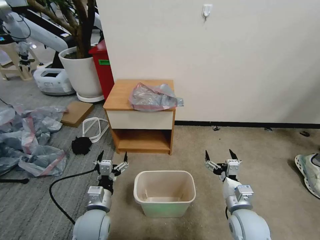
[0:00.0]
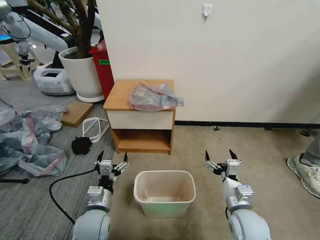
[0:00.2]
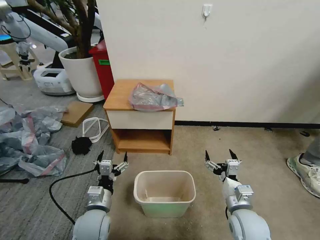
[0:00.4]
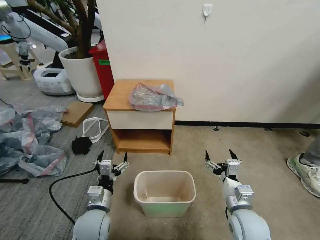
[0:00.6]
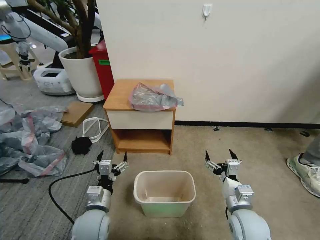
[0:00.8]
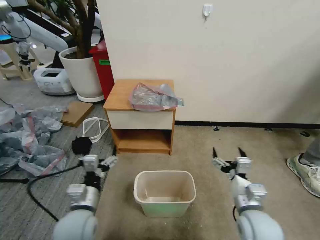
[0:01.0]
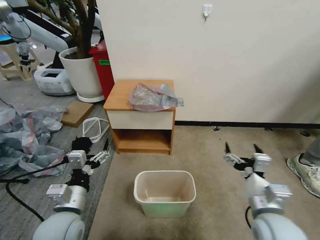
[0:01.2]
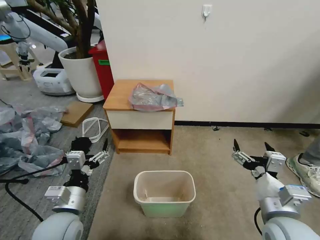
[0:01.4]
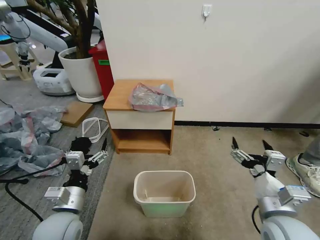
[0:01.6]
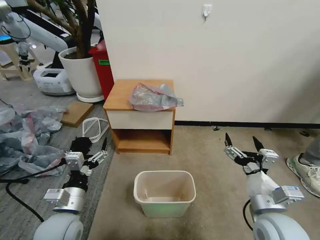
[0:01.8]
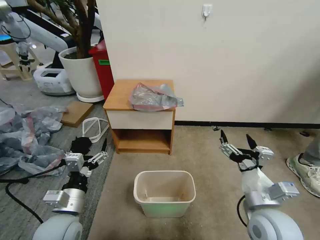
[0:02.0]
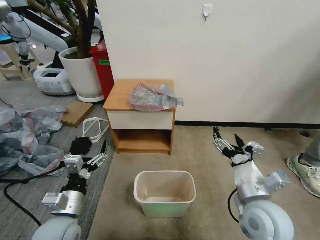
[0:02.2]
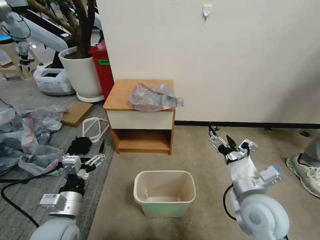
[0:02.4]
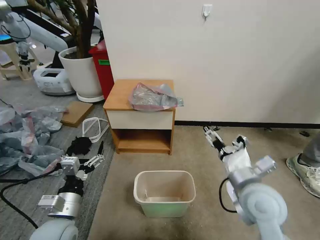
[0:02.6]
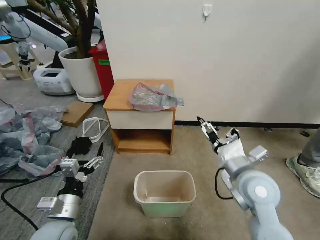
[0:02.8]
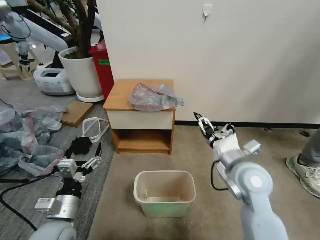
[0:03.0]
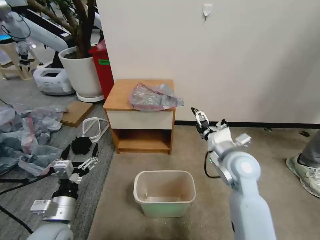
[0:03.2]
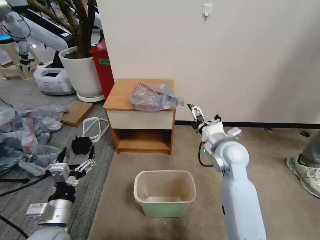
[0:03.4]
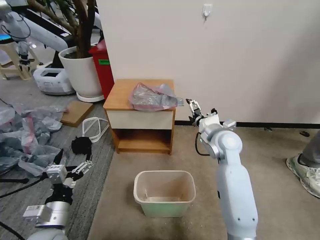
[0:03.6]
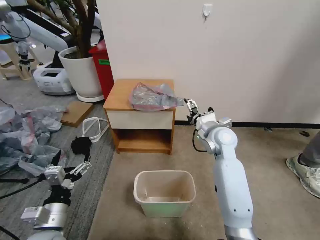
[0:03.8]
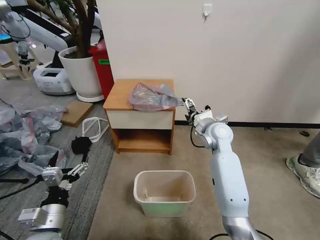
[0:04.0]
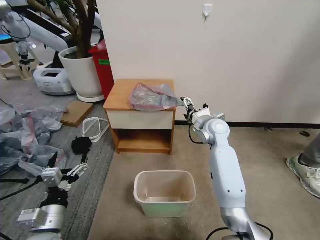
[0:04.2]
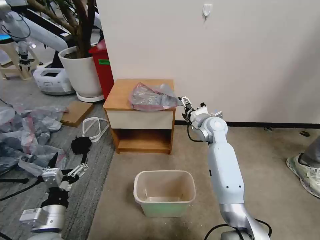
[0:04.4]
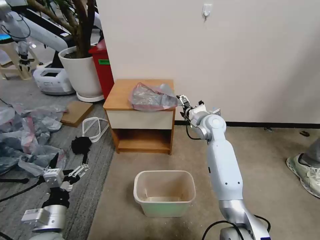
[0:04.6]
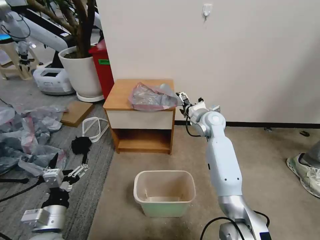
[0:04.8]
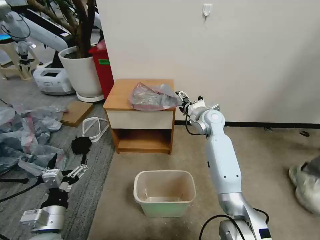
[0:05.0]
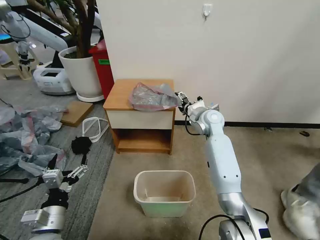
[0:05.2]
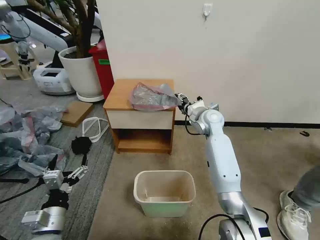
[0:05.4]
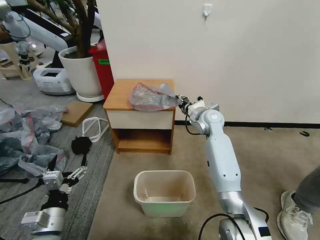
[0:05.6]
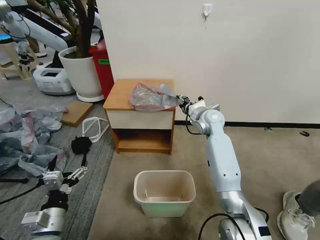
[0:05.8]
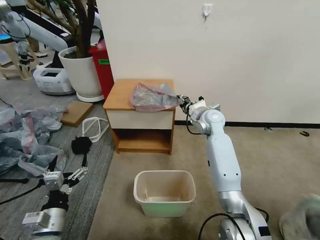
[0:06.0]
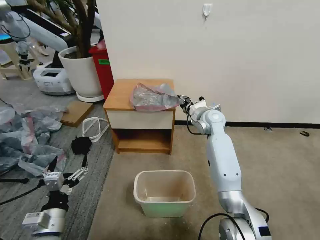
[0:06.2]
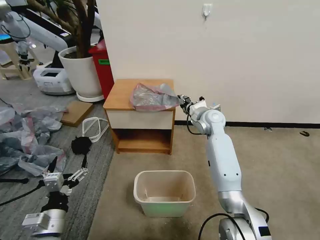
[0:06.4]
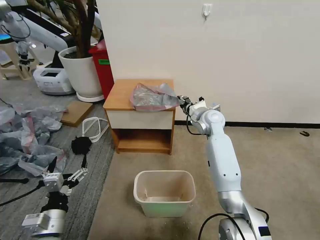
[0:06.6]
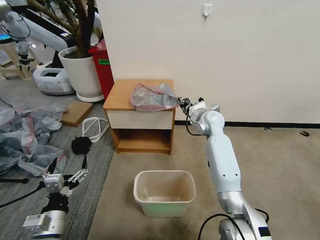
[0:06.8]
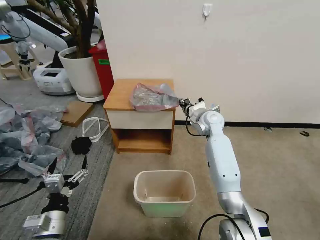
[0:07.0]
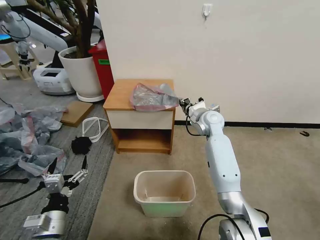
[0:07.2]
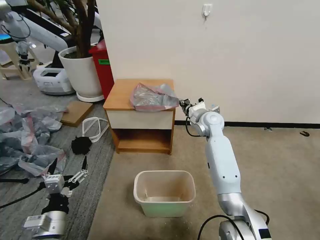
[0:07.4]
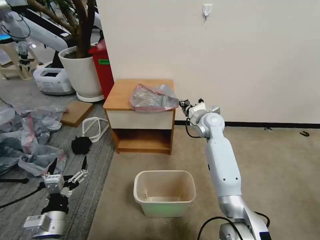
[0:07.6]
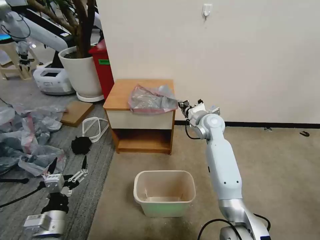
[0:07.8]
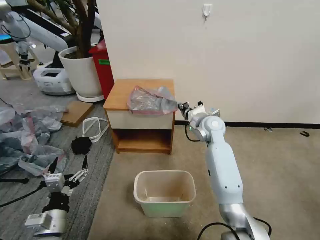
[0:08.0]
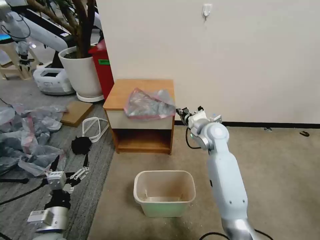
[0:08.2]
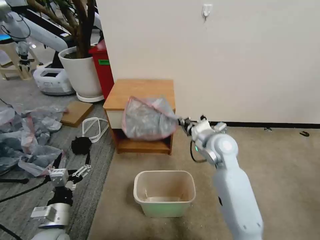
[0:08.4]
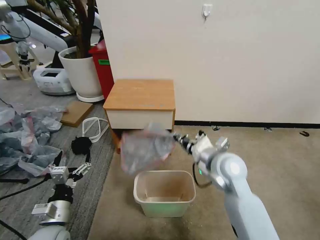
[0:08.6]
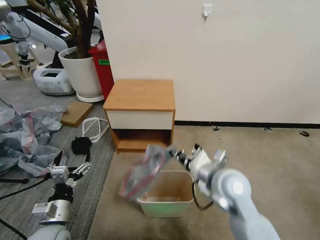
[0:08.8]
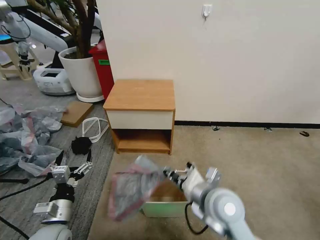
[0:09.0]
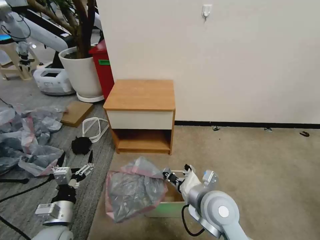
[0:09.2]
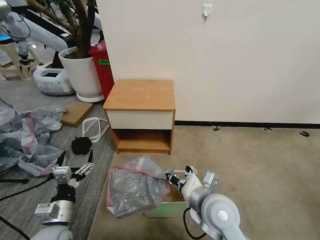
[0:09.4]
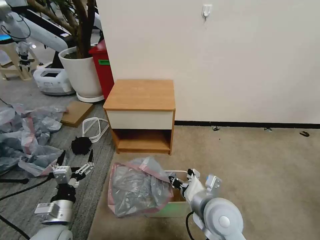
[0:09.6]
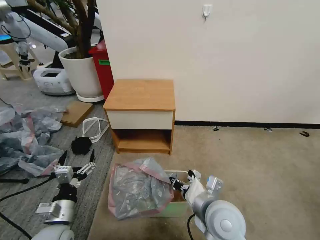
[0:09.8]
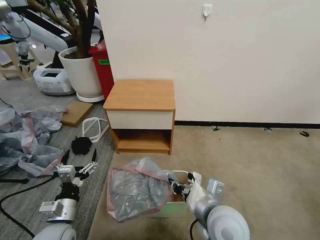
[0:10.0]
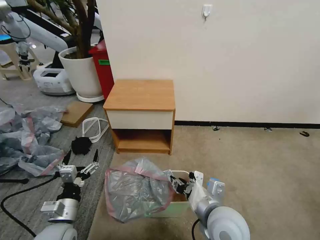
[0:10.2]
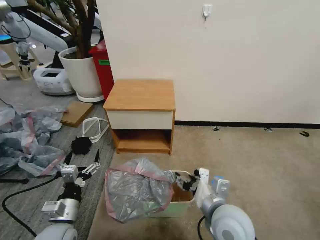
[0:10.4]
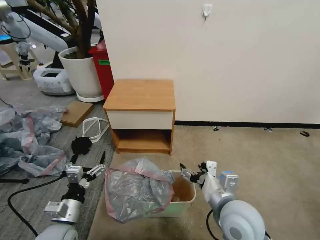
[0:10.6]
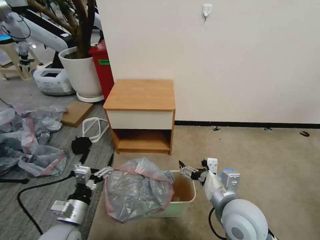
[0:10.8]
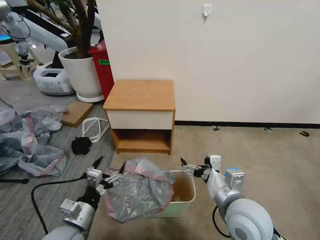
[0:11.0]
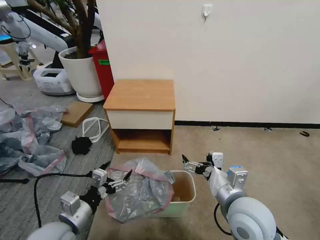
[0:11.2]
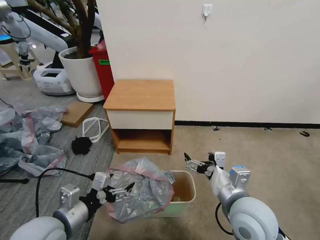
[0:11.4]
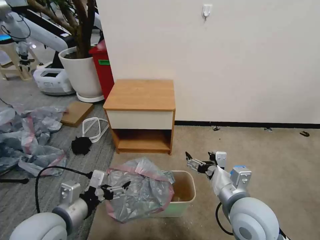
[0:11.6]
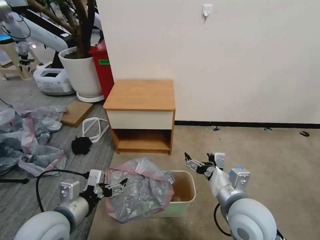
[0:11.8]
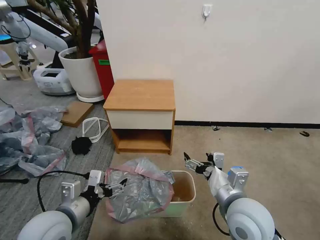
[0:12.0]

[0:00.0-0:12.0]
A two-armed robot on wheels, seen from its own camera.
Task of the whole recording: Pick up the garbage bag from the table and place it over the trash can.
0:01.6 to 0:03.0: The right gripper moves forward, roughly 15 cm.
0:03.0 to 0:04.4: The right gripper shifts about 20 cm forward.
0:04.4 to 0:06.0: The right gripper closes up.
0:06.0 to 0:07.6: The right gripper closes its fingers.
0:07.6 to 0:09.0: The right gripper shifts about 30 cm backward.
0:09.0 to 0:10.4: The right gripper opens up.
0:10.4 to 0:12.0: The left gripper shifts some 10 cm upward.

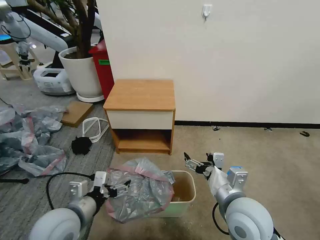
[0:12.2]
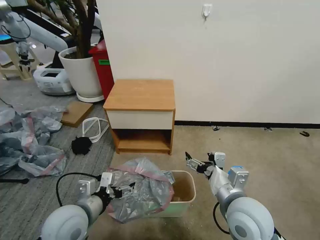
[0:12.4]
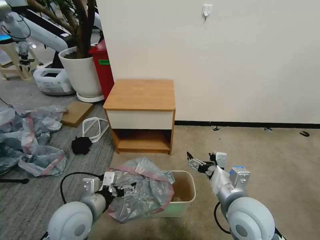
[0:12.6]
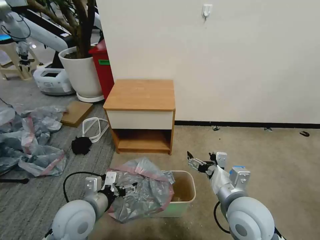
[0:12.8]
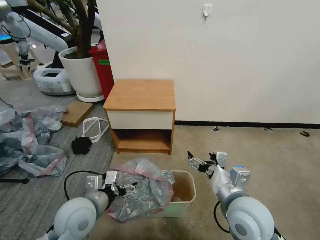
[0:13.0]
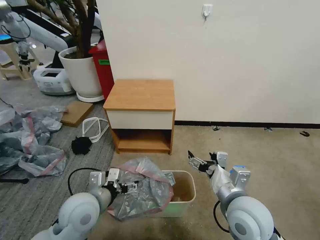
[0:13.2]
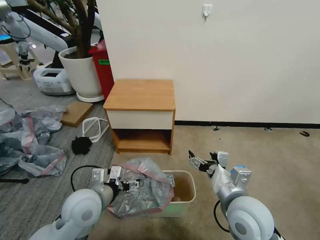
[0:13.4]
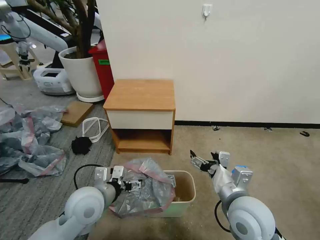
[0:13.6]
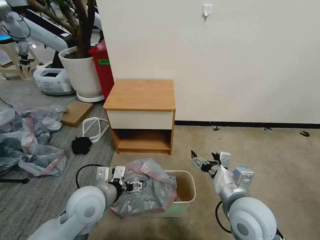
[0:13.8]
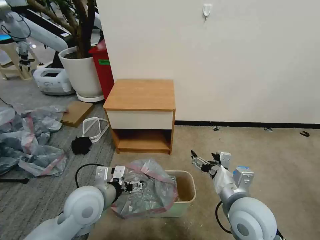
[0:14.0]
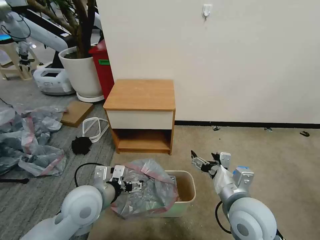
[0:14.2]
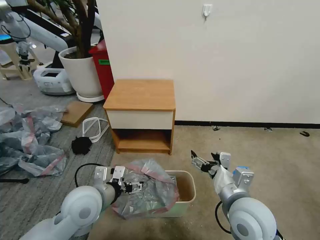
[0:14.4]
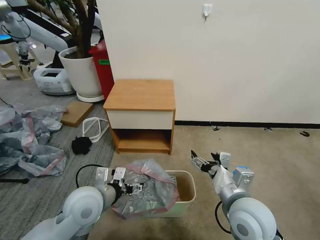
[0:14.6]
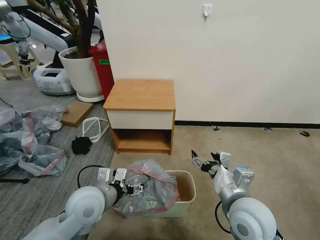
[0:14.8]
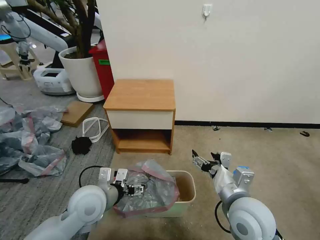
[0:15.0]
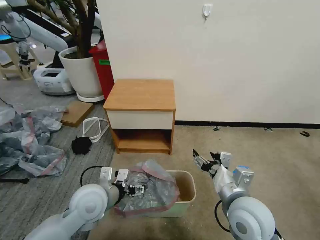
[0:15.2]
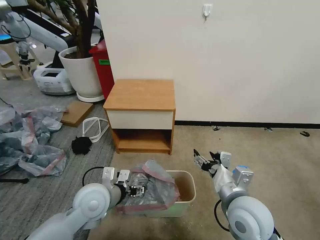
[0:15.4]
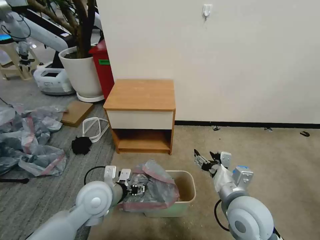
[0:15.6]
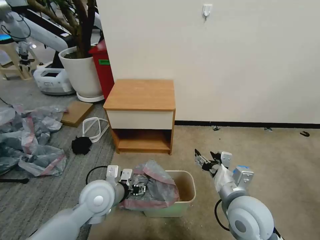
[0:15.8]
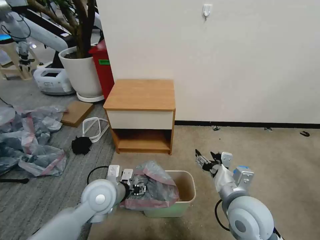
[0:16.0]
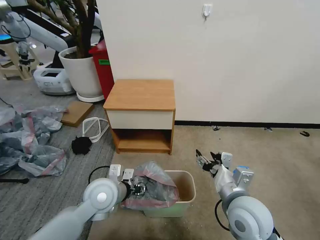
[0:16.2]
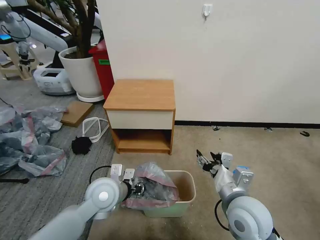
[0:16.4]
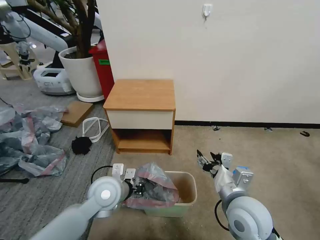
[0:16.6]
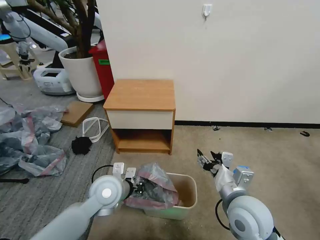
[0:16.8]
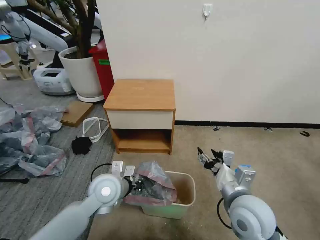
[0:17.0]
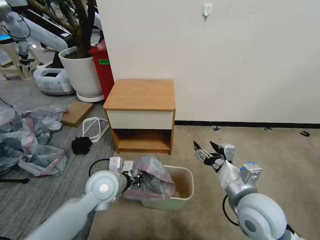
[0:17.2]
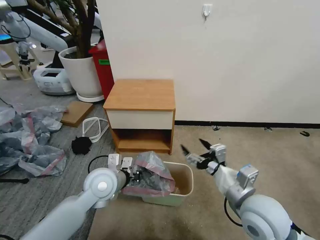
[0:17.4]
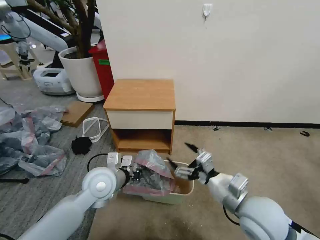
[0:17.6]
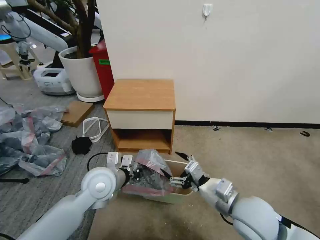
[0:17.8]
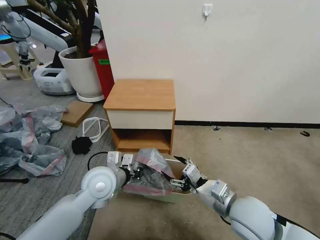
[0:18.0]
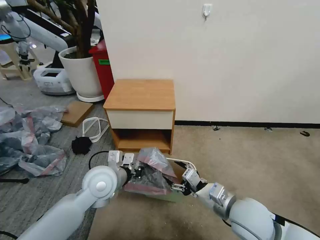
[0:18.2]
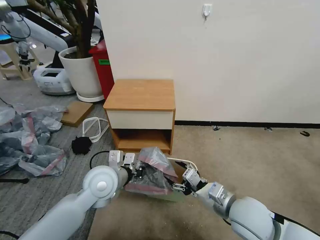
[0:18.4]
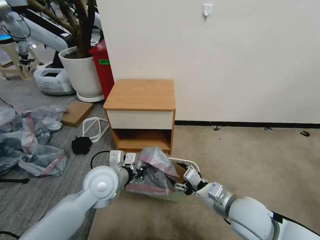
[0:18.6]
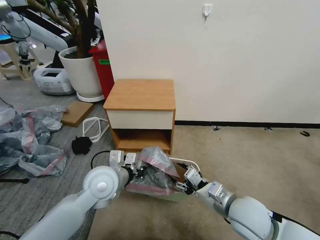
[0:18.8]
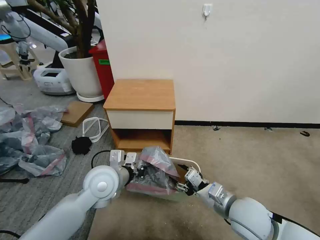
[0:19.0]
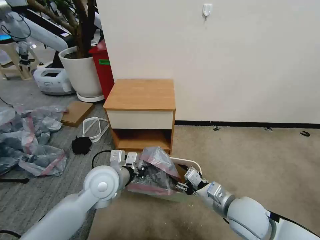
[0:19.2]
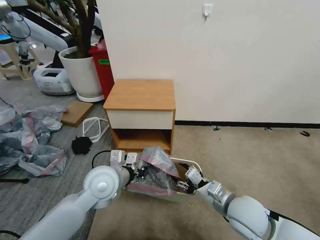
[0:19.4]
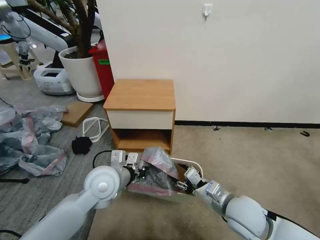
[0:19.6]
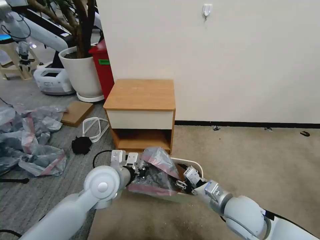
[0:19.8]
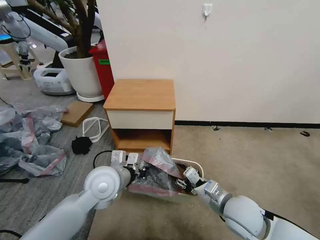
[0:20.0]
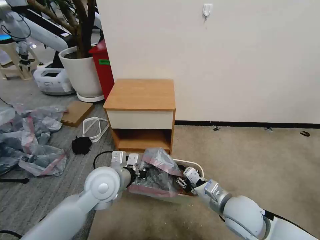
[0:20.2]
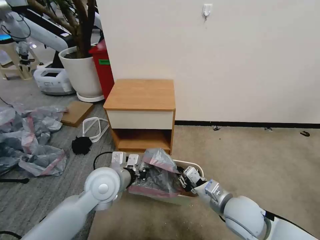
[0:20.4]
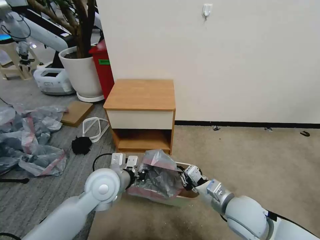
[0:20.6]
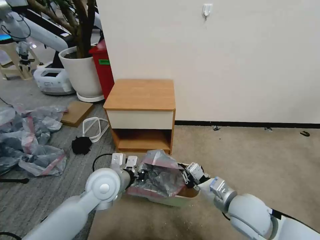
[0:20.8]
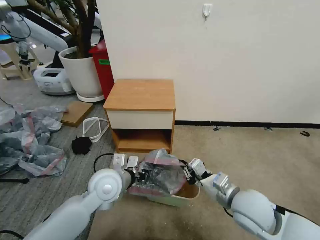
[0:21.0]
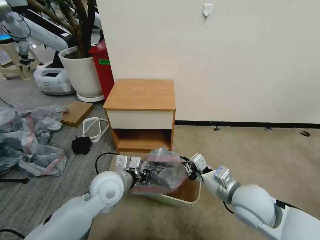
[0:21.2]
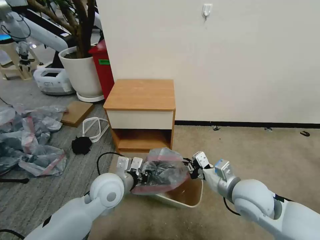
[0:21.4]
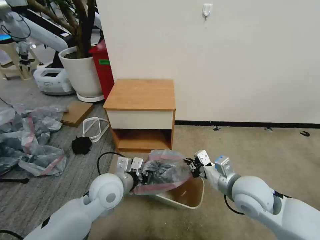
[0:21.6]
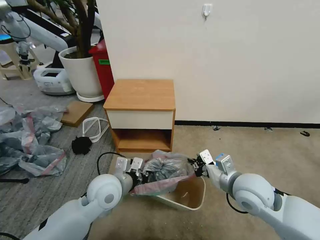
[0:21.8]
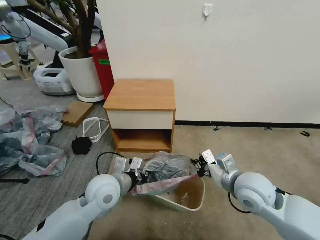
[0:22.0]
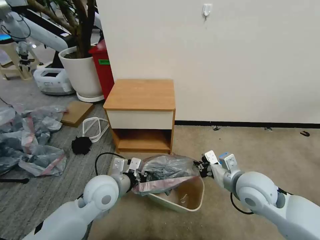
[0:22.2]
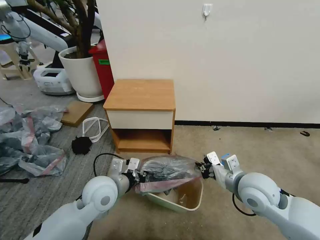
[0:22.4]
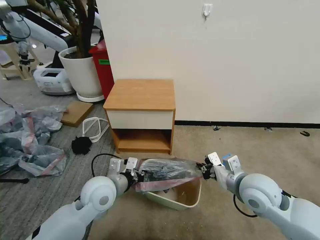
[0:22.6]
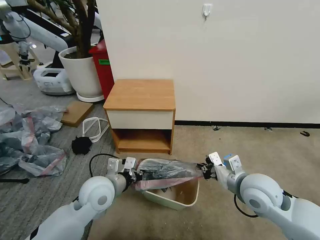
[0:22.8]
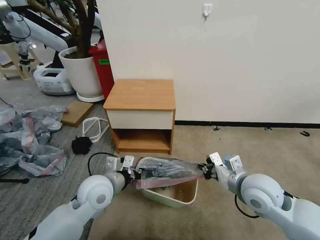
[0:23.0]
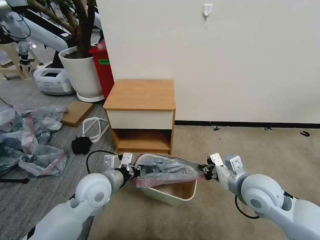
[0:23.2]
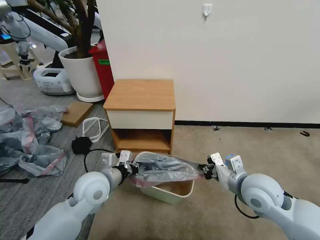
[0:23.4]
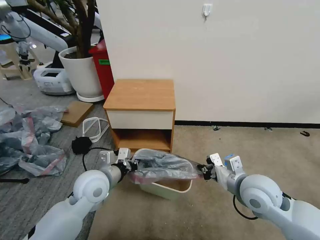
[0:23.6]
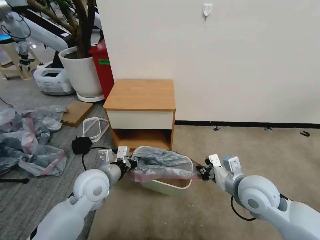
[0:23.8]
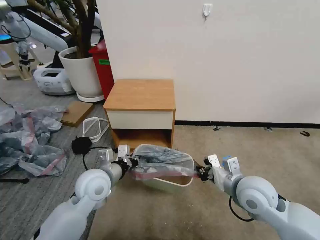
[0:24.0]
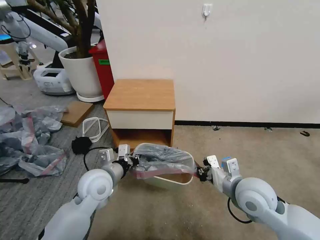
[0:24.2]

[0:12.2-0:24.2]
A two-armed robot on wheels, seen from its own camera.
Task of the whole recording: Pick up the garbage bag from the table and place it over the trash can.
0:12.2 to 0:13.8: The left gripper heads forward, covering roughly 5 cm.
0:13.8 to 0:15.2: The grippers move only a little.
0:15.2 to 0:16.6: The left gripper closes up.
0:18.2 to 0:19.8: The grippers stay close to where they were, moving slightly.
0:19.8 to 0:21.2: The right gripper ends up about 5 cm from where it was, and closes up.
0:22.6 to 0:24.2: The grippers move only a little.
